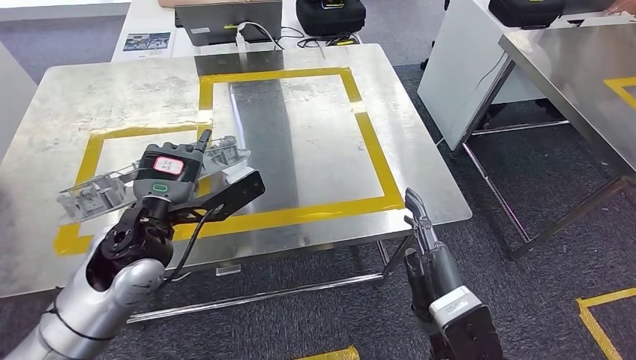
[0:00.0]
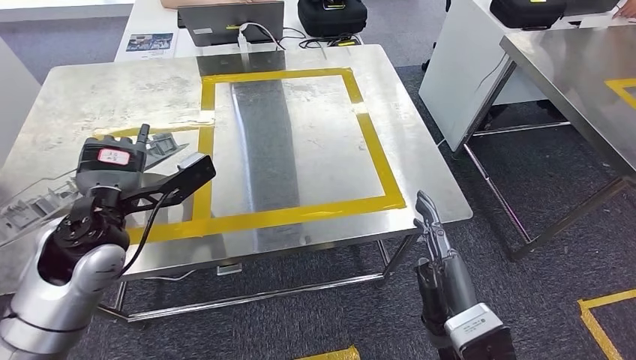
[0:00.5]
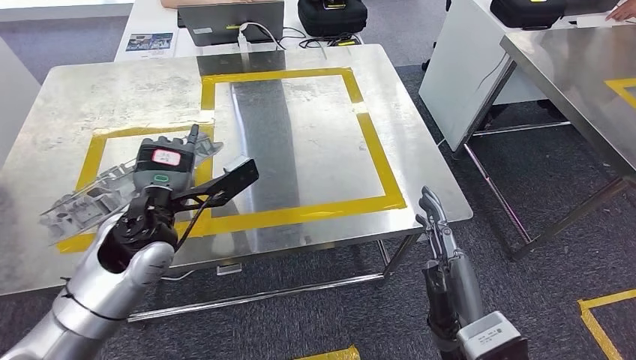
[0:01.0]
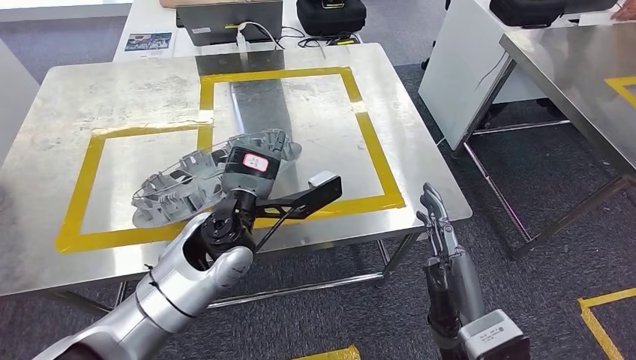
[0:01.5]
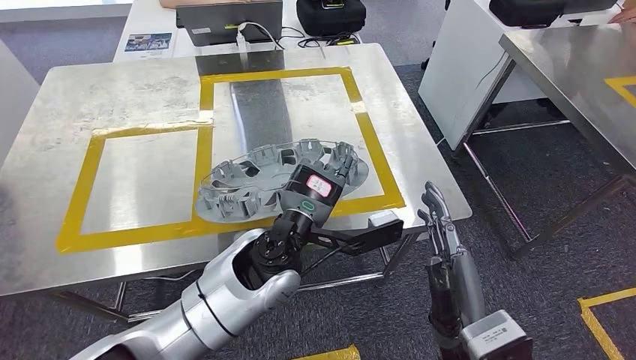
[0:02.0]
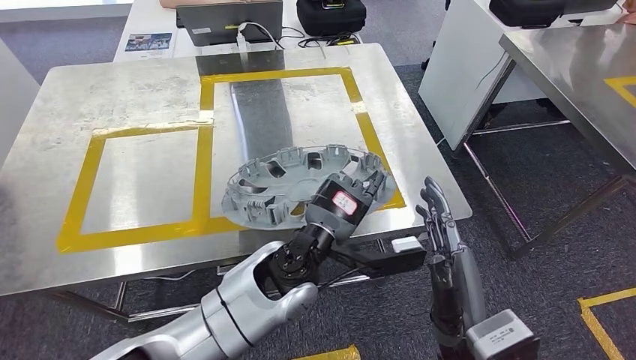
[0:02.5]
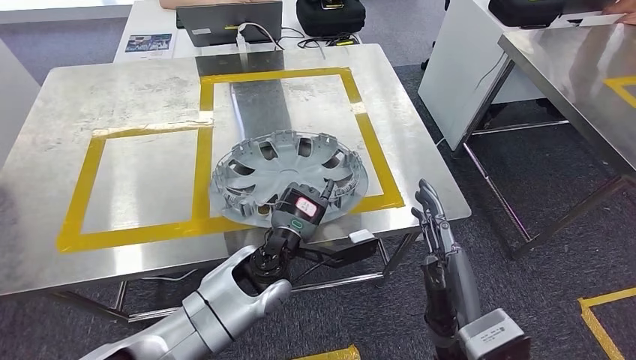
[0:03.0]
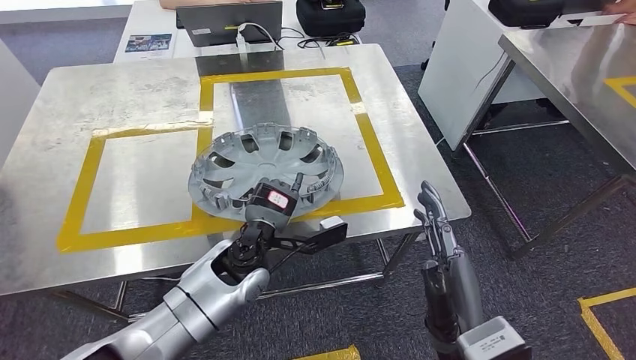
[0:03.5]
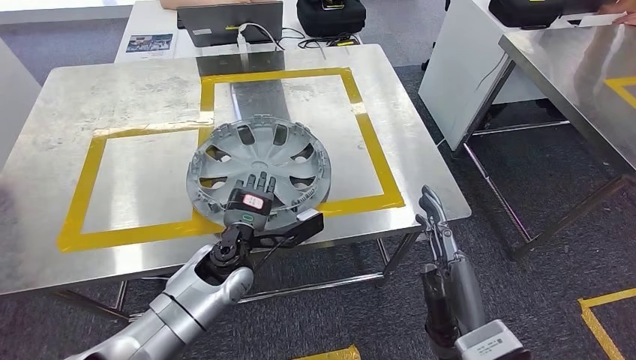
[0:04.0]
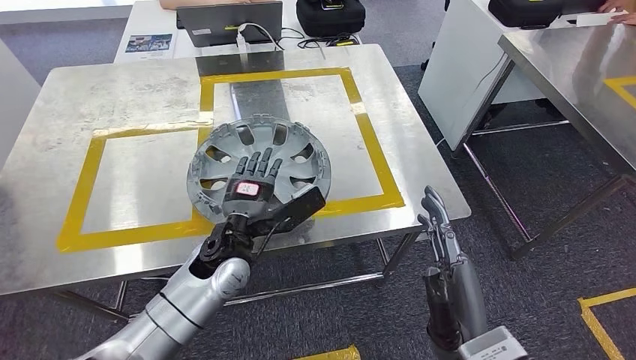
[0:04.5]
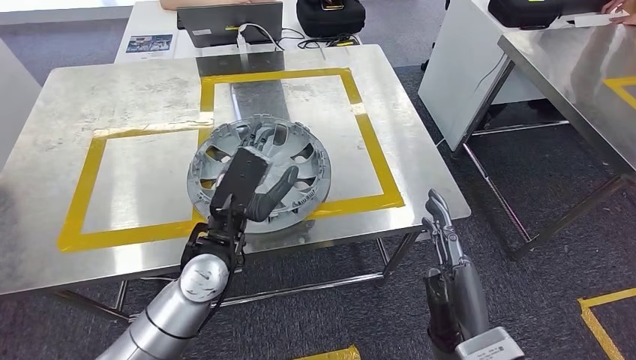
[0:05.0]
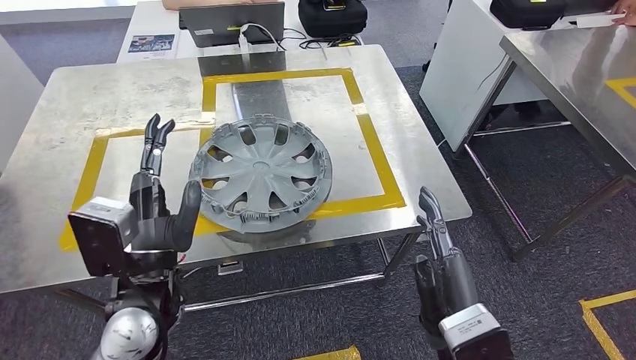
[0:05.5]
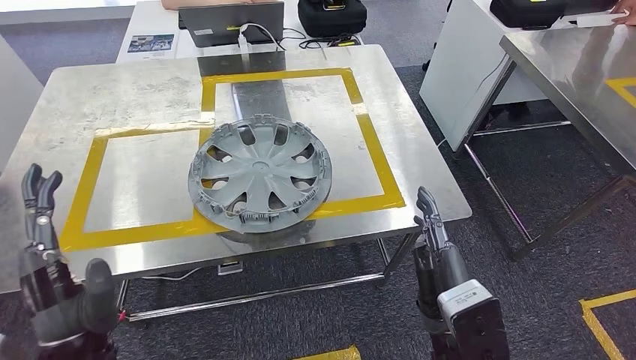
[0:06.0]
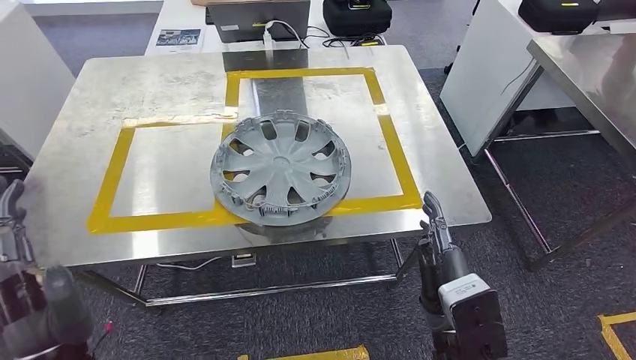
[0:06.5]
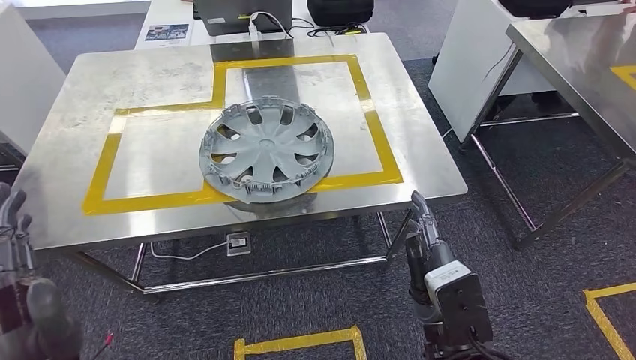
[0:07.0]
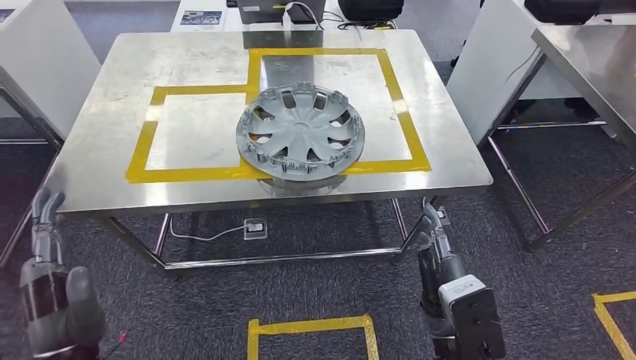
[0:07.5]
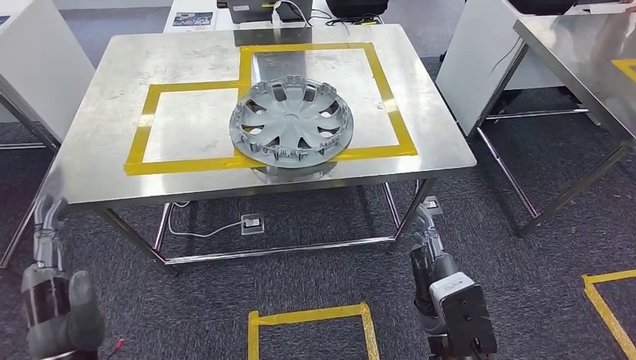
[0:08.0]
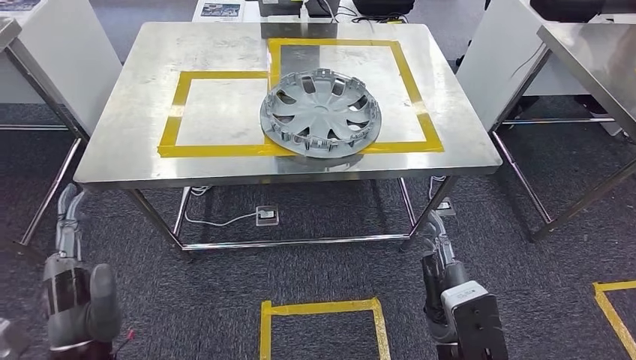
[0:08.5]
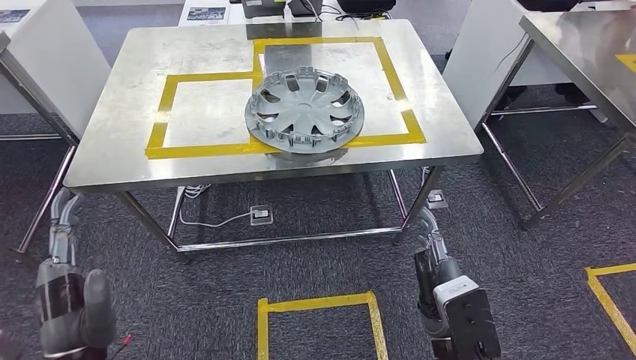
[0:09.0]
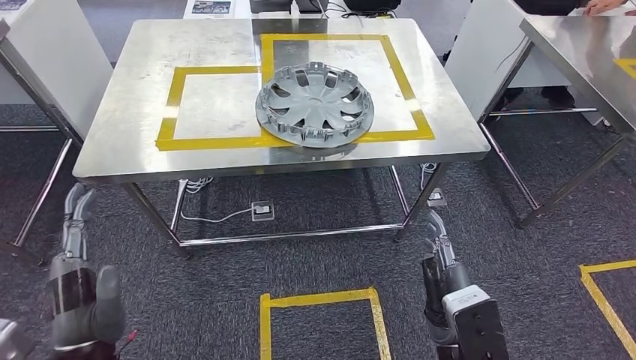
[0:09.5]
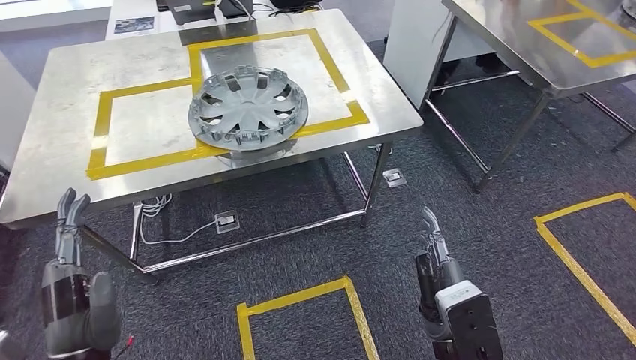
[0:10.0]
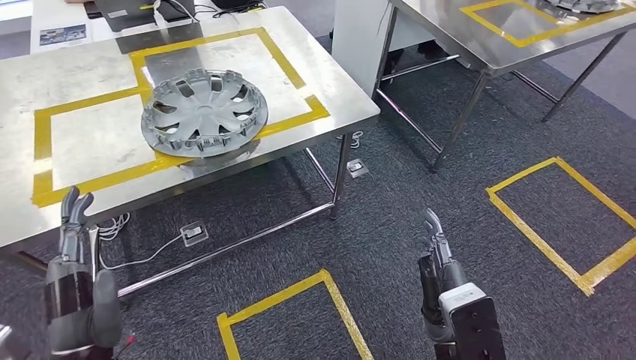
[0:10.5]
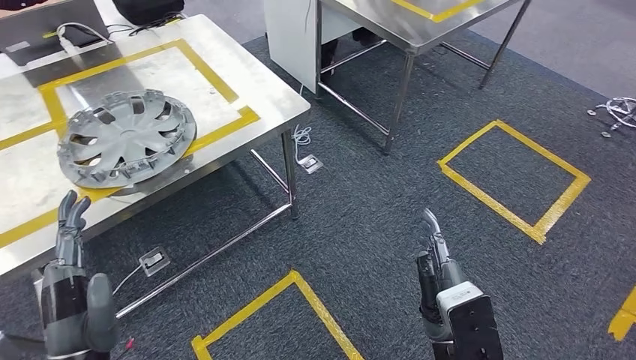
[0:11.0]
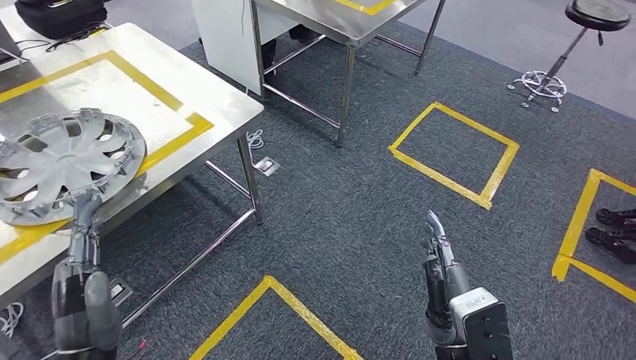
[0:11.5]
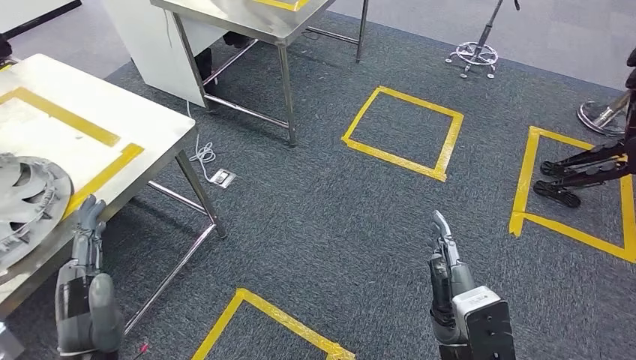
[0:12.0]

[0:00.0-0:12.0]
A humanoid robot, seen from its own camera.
Step, 0:00.0 to 0:05.5: Insert the small component into the corresponding slot on the workbench.
0:02.0 to 0:04.0: The left hand moves downward and to the left, roughly 15 cm.
0:04.0 to 0:06.0: The left hand is displaced backward, to the left and upward by about 25 cm.

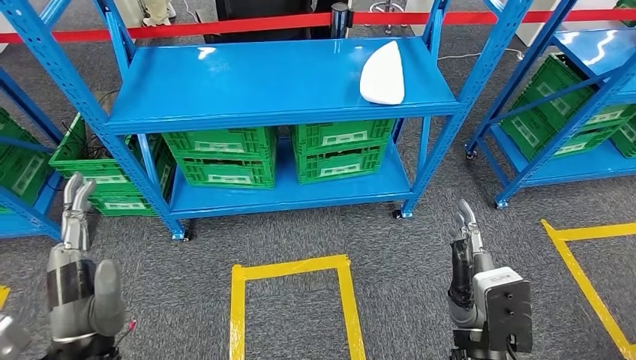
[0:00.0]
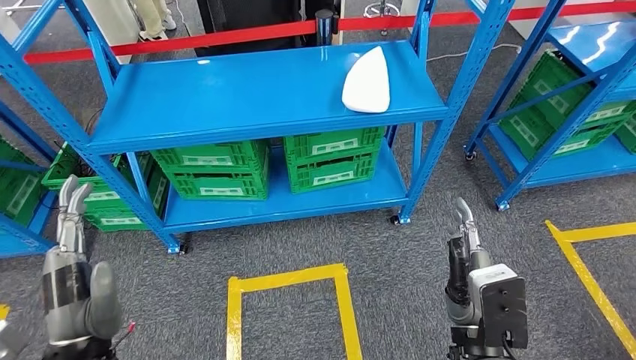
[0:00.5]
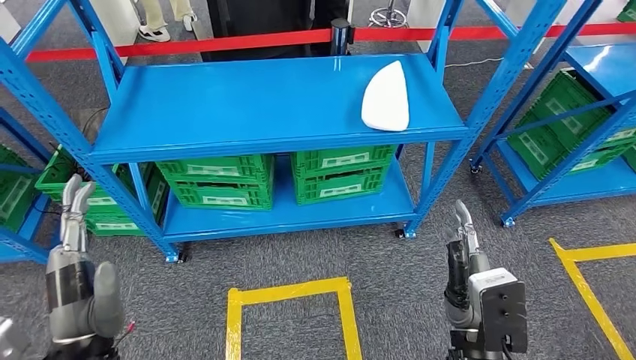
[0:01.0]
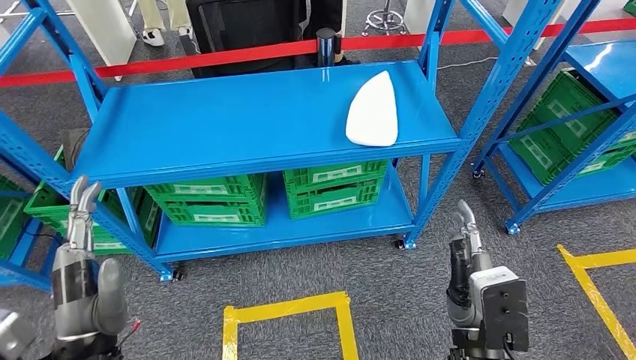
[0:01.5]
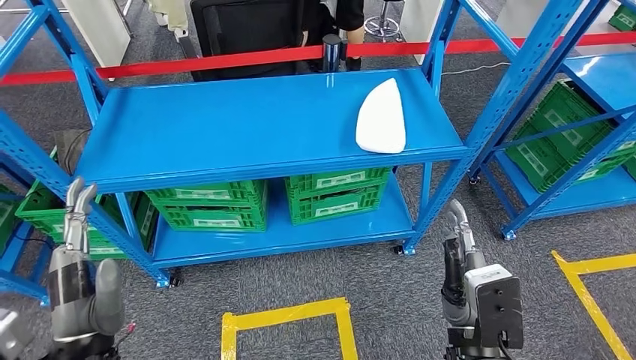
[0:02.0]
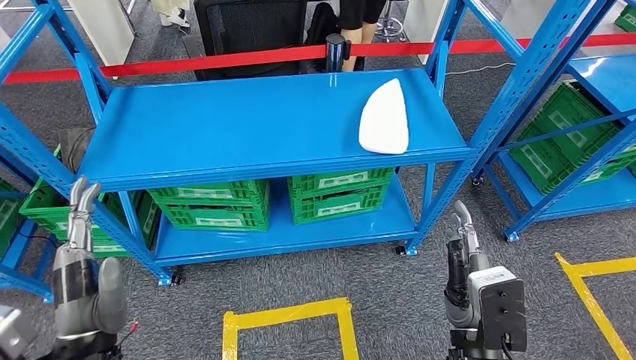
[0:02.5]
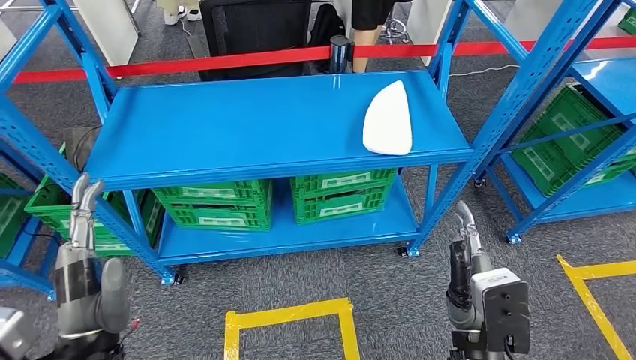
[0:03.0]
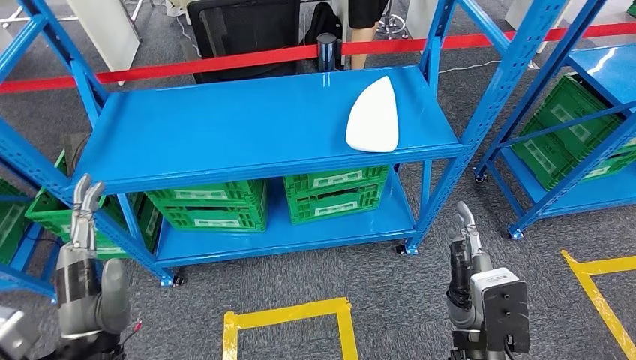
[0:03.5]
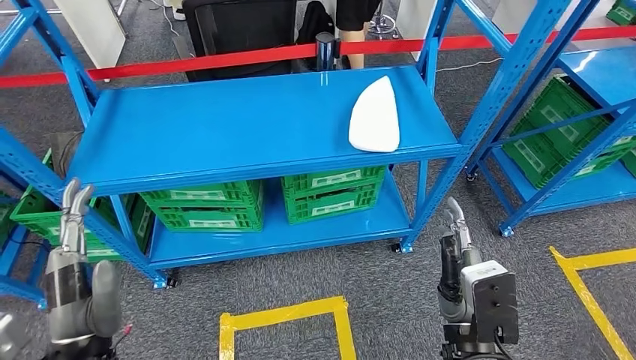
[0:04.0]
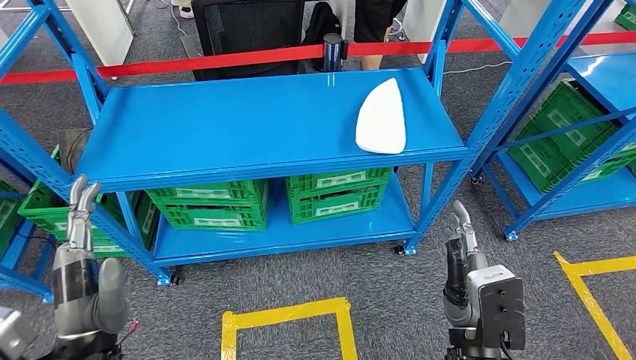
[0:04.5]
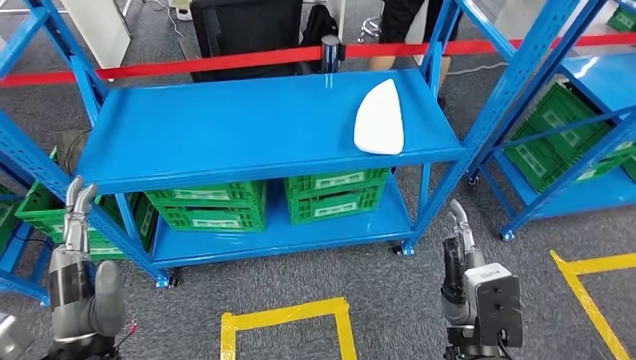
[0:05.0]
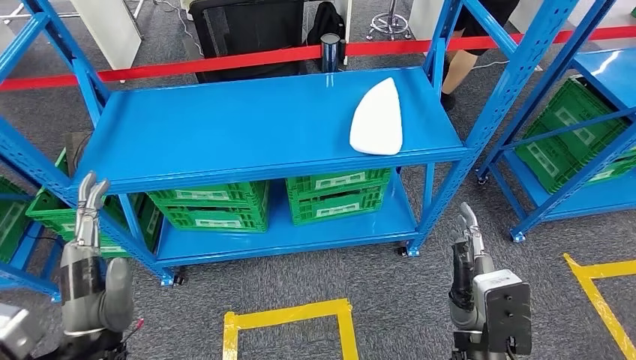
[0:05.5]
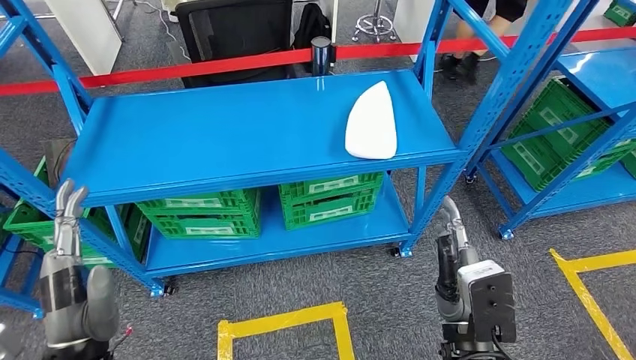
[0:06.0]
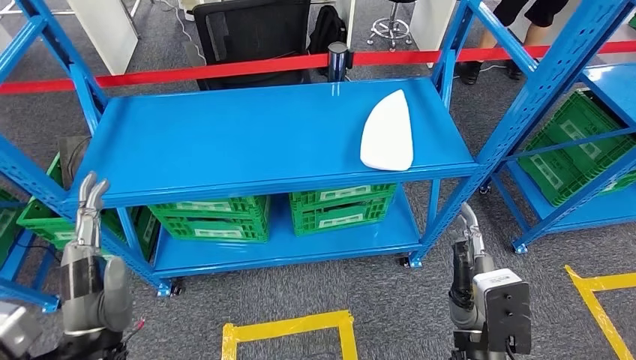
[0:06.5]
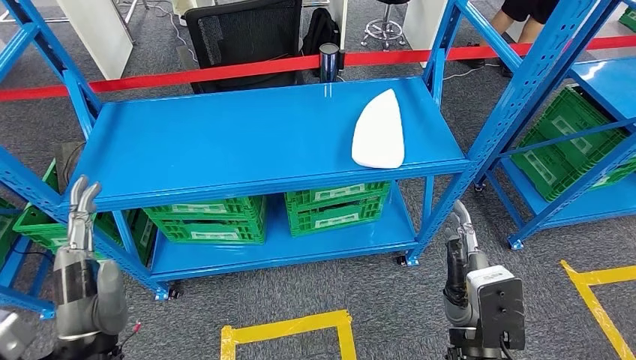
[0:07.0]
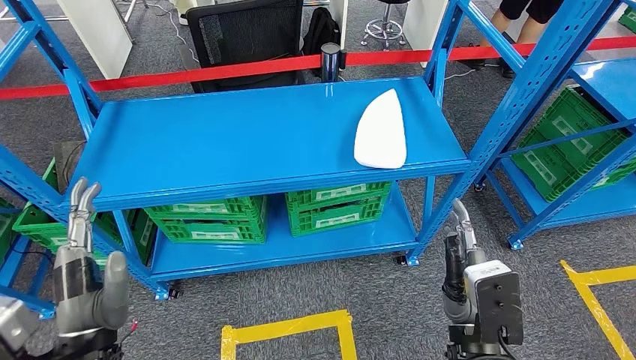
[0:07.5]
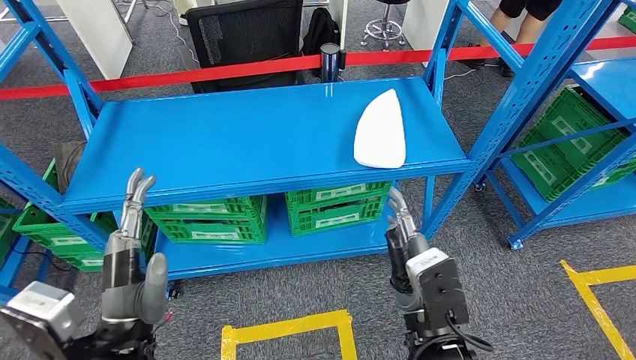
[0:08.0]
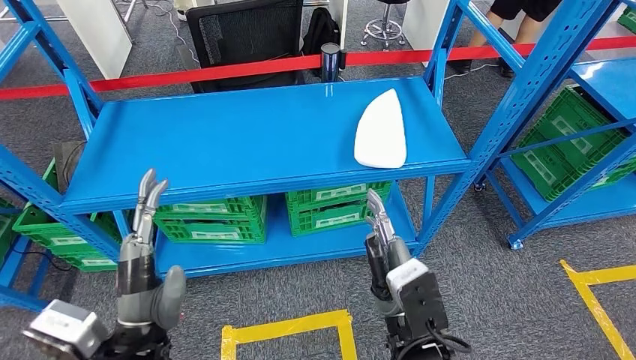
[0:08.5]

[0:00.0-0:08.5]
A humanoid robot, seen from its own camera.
Step, 0:00.0 to 0:08.5: Move to the initial position of the workbench.
0:02.0 to 0:04.0: Neither hand changes place.
